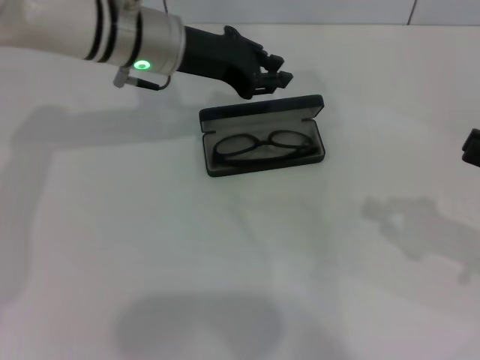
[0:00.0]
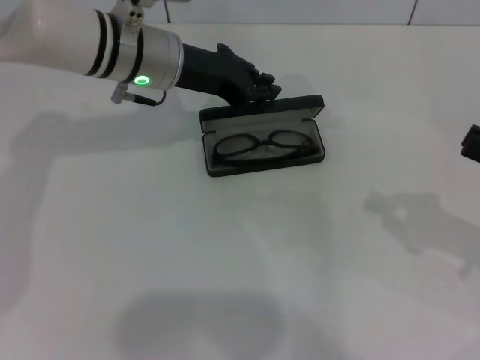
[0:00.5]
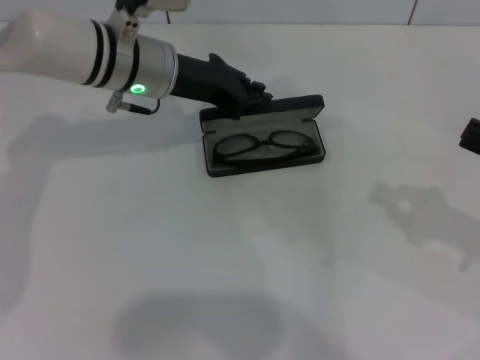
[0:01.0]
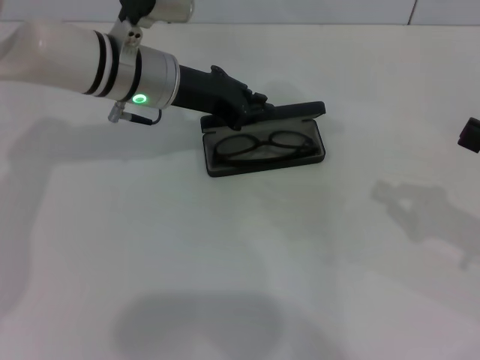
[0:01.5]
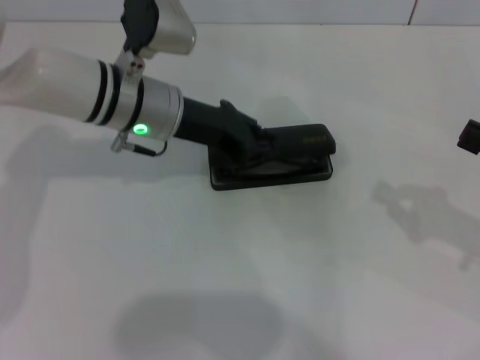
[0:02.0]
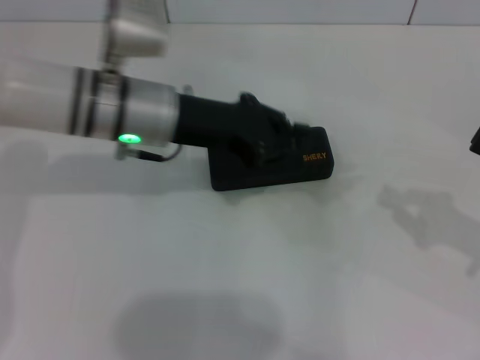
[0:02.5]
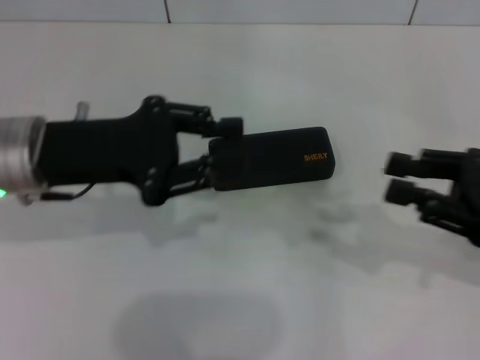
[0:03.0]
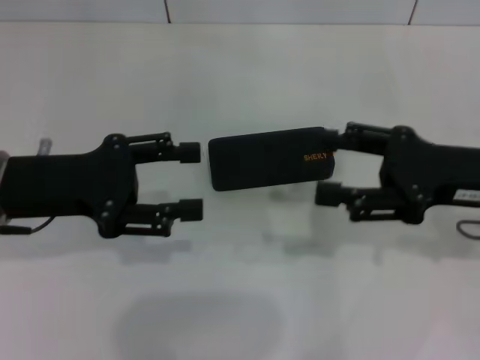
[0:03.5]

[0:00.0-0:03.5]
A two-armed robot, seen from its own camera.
Step, 0:00.0 to 0:02.0: Close the glasses case with your left hand.
0:00.0 to 0:02.0: The left gripper moves approximately 5 cm.
0:02.0 to 0:03.5: The left gripper shifts about 15 cm to the left and backward, and opens its fingers. Meanwhile the right gripper moves to the left, roughly 10 cm, and opens up.

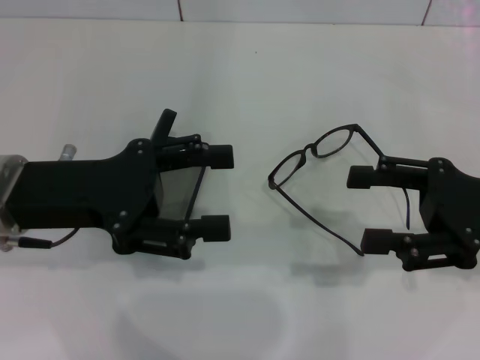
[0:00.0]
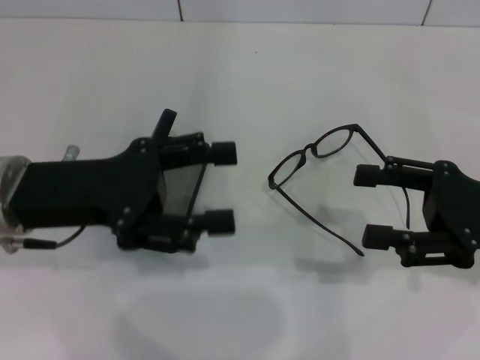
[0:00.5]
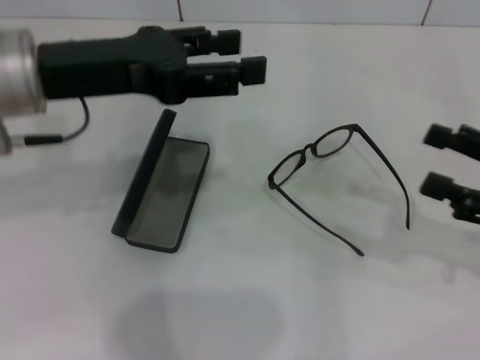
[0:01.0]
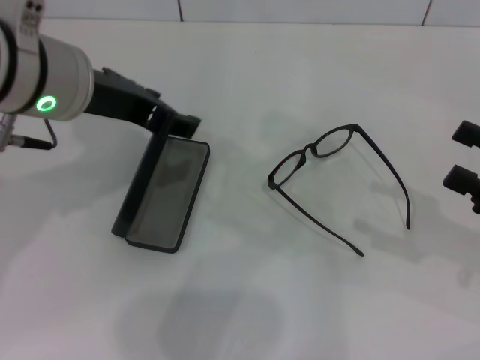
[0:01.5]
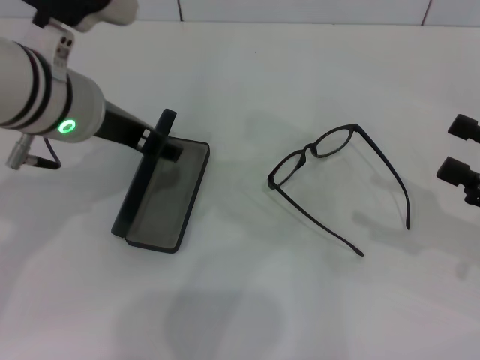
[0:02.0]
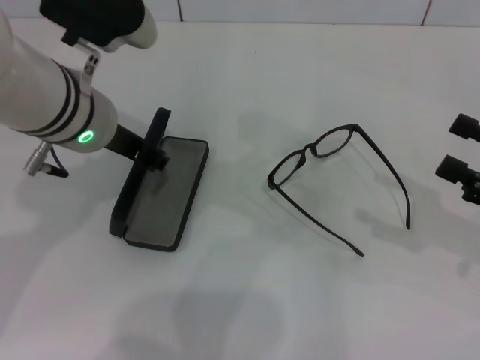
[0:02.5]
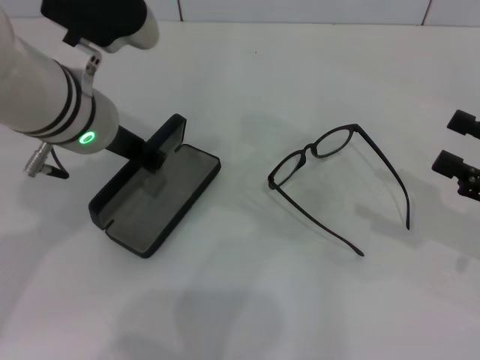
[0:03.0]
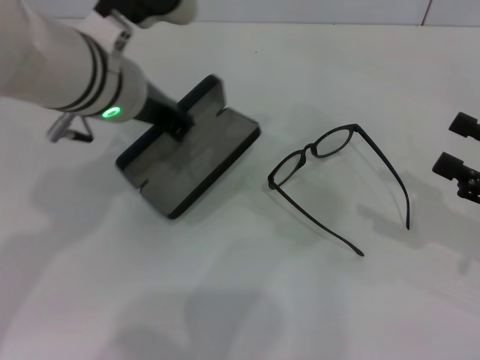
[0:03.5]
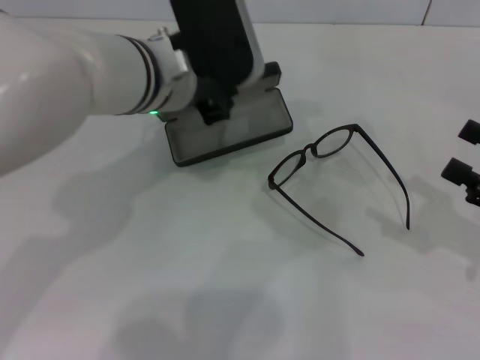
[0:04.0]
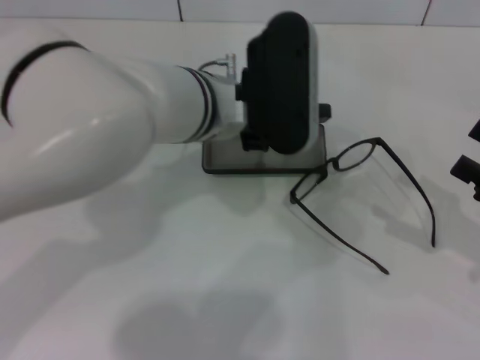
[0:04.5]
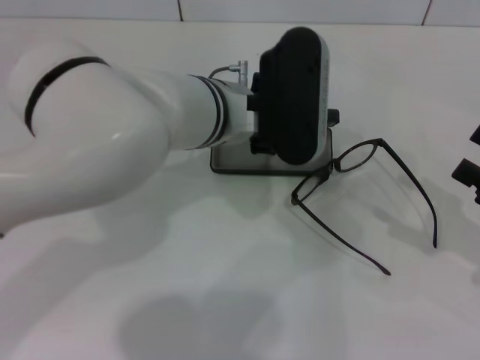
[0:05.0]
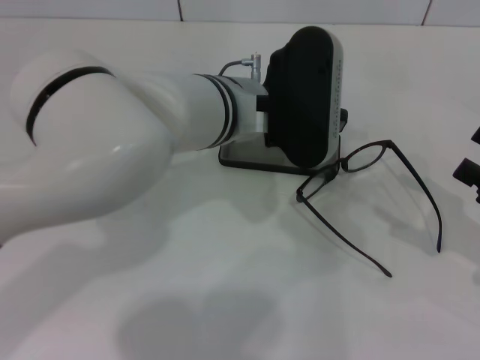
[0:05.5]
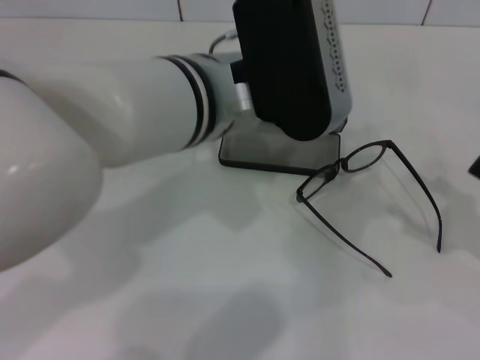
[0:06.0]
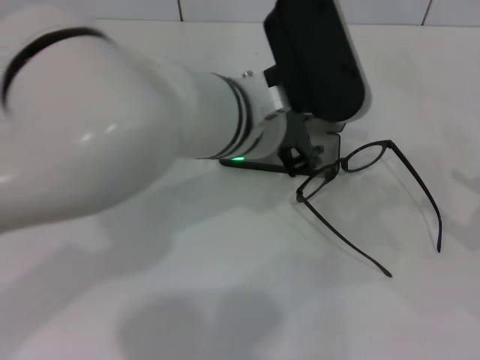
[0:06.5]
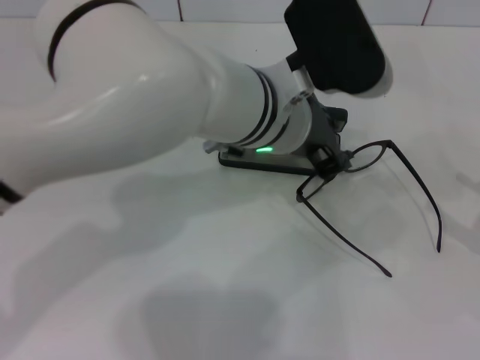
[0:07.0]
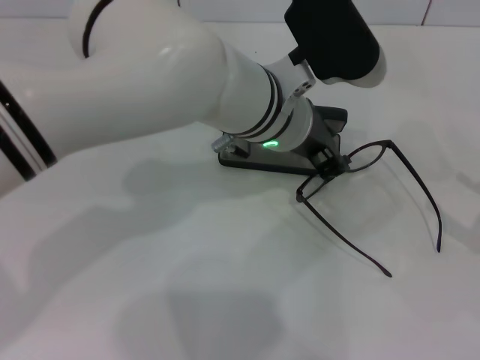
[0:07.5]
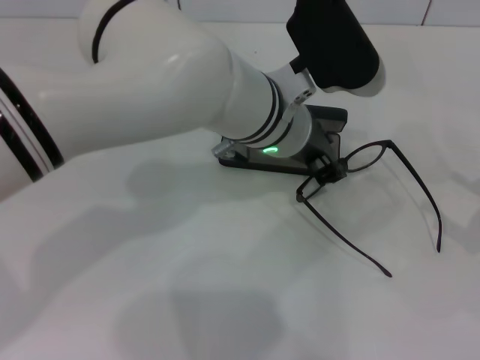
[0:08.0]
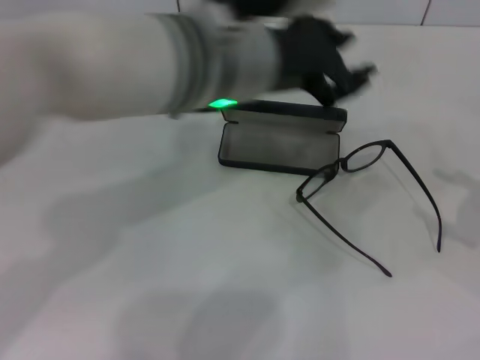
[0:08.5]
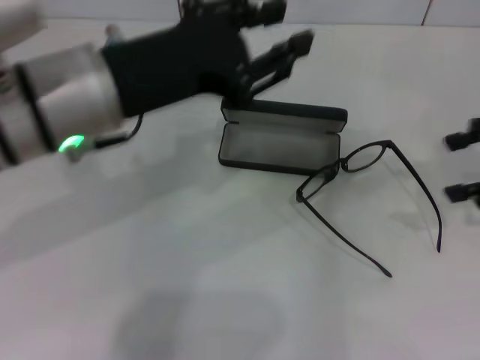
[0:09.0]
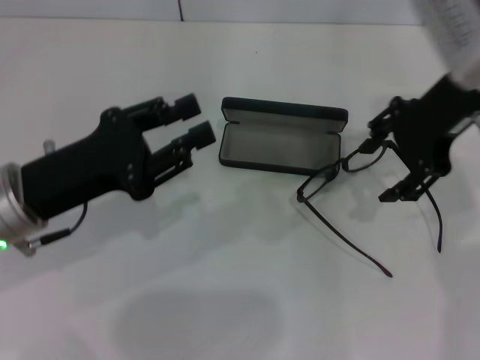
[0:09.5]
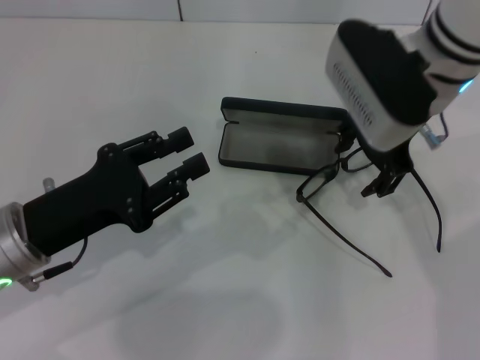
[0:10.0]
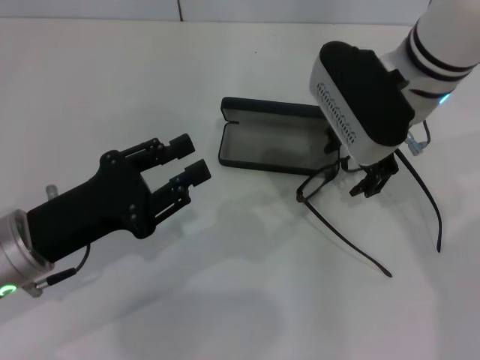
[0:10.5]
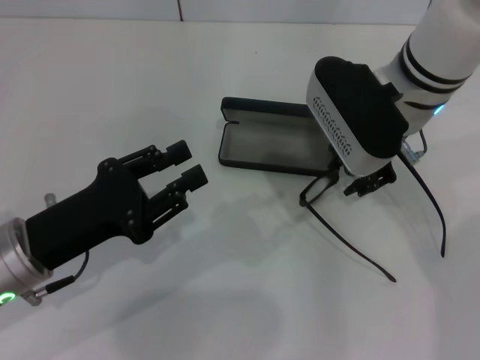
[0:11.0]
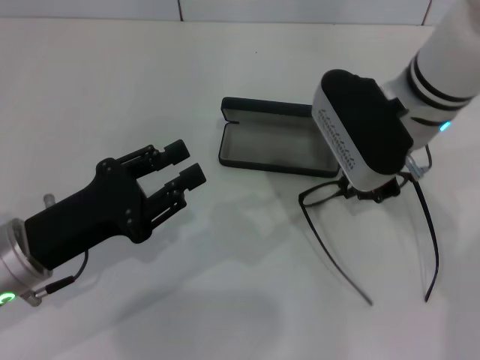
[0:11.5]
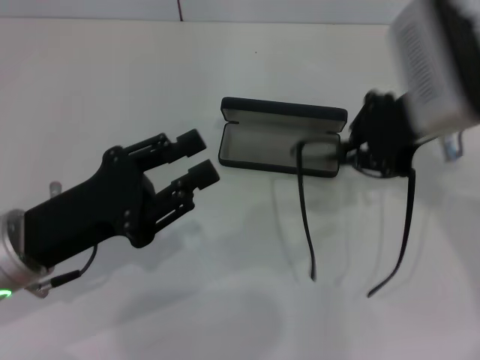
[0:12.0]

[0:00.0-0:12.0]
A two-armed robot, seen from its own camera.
Step, 0:00.0 to 0:02.5: Grab the glasses case with your left hand.
Step, 0:03.0 to 0:05.5: Place the glasses case in the center of the table with your left hand.
Step, 0:06.0 to 0:11.0: Grab the eyeglass frame with your right hand.
0:00.0 to 0:02.0: The right gripper is displaced to the right by some 5 cm; the left gripper goes approximately 10 cm to the right, forward and upward.
0:02.0 to 0:04.0: The left gripper goes approximately 5 cm to the right, and closes up.
0:04.0 to 0:06.0: The left gripper is displaced backward by some 5 cm.
0:06.0 to 0:08.0: The left gripper moves downward, approximately 5 cm.
0:08.0 to 0:10.0: The left gripper travels to the left and backward by some 25 cm. Meanwhile the right gripper moves to the left, forward and upward, about 35 cm.
0:10.0 to 0:12.0: The right gripper goes about 5 cm to the right, and closes its fingers.

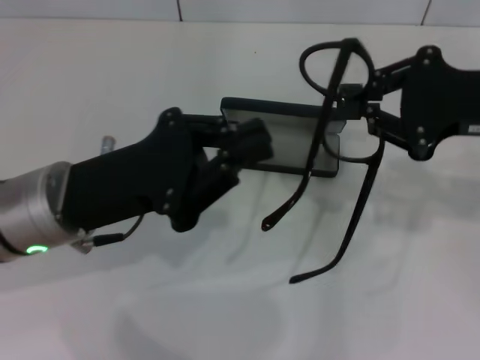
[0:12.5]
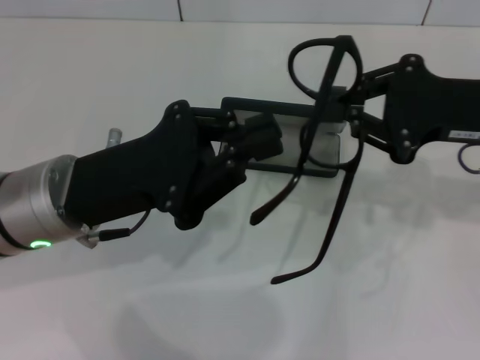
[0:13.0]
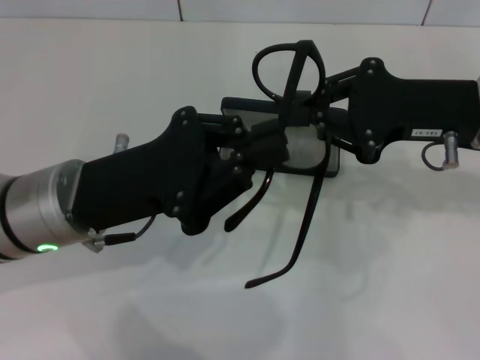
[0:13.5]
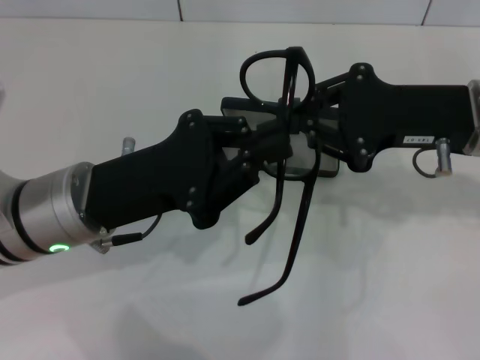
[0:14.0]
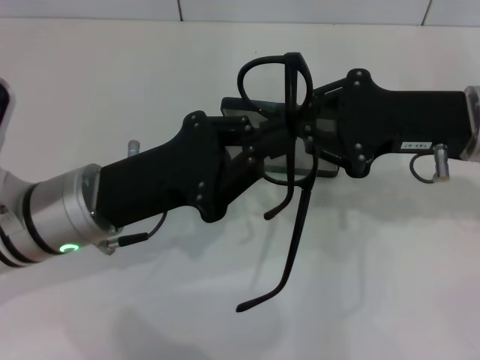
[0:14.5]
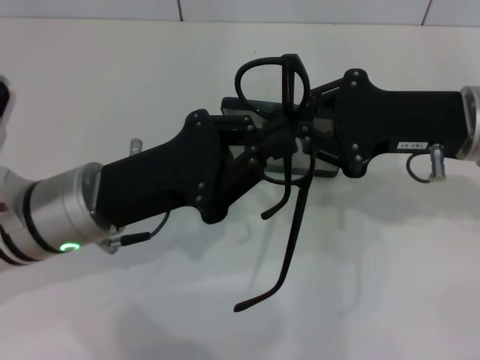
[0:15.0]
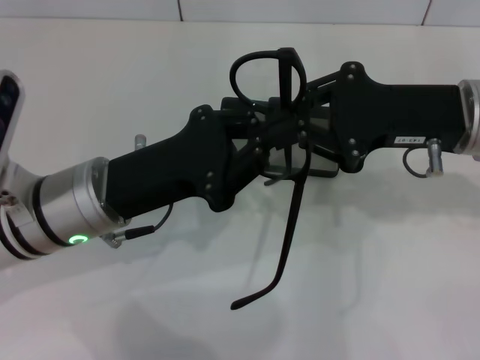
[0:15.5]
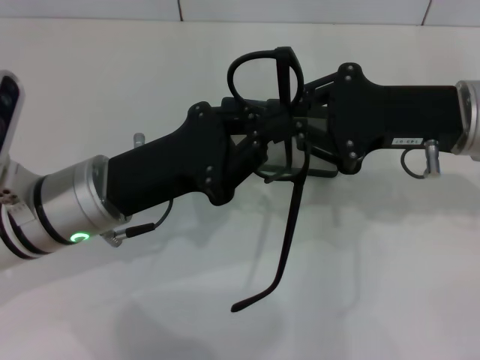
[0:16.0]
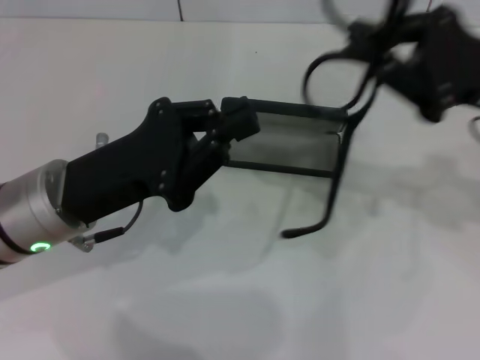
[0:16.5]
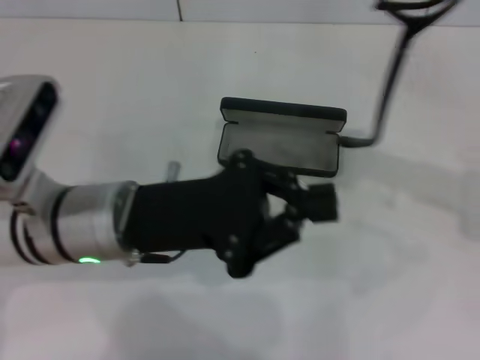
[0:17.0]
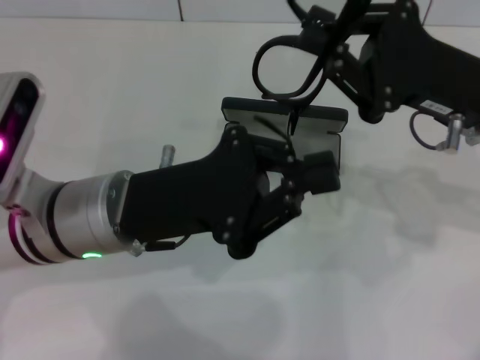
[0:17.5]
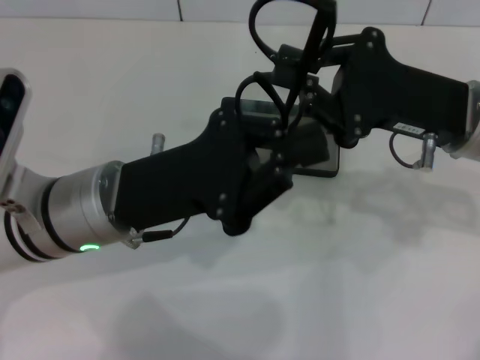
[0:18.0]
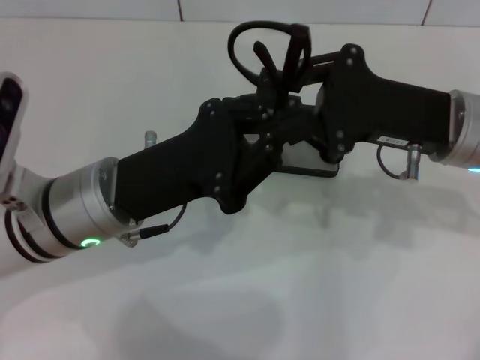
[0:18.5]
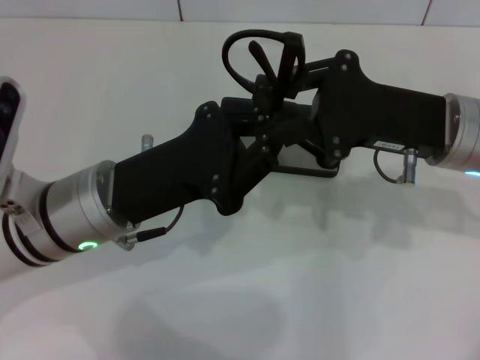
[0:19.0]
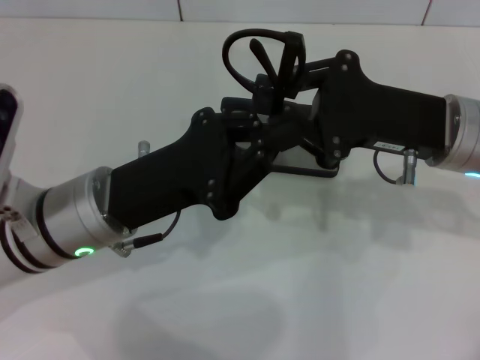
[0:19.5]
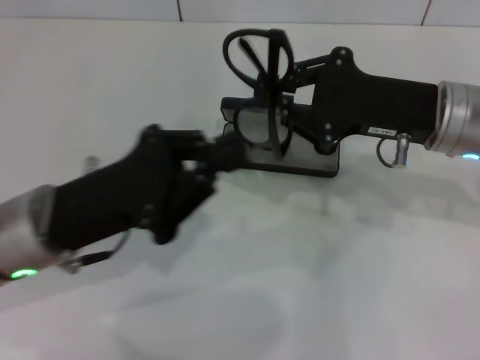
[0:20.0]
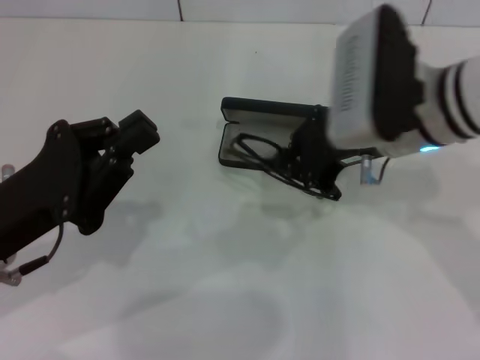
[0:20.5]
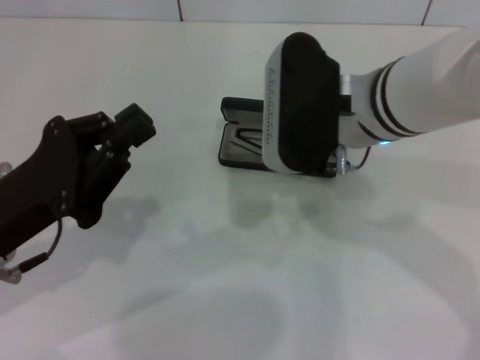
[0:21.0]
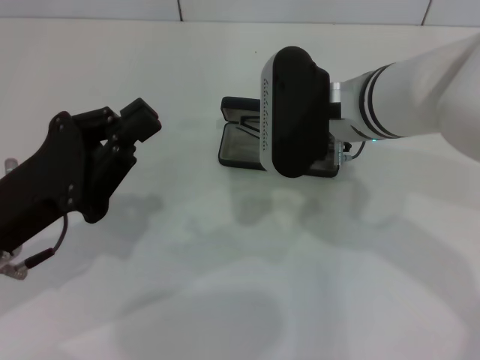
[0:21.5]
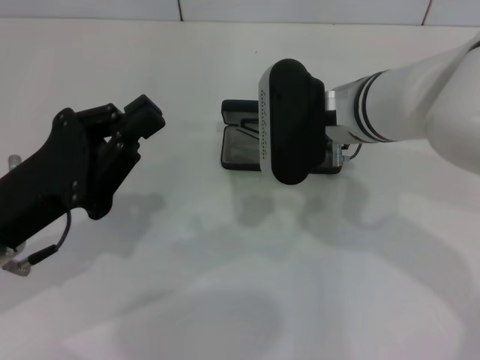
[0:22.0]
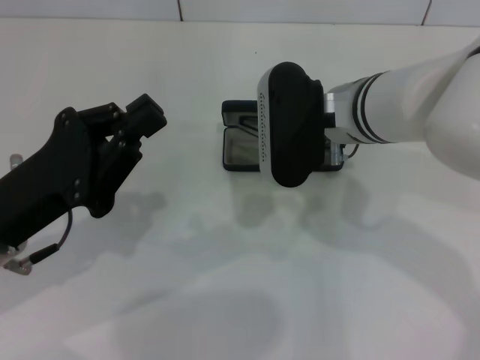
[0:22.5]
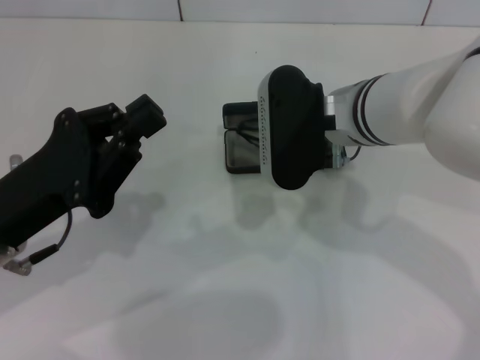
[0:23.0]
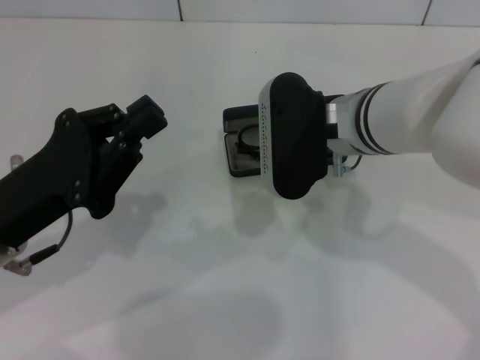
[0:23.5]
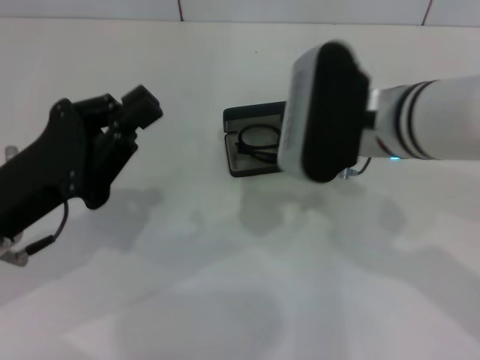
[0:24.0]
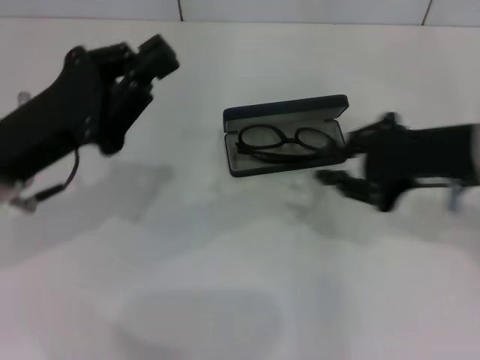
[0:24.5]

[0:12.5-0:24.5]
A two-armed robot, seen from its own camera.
Step, 0:12.5 to 0:19.5: Fold the frame with your left hand.
Step, 0:20.0 to 0:23.5: Put the glasses into the case with your right hand.
0:12.5 to 0:14.5: The right gripper changes place by roughly 5 cm.
0:16.5 to 0:18.5: The right gripper heads to the left, covering some 5 cm.
0:18.5 to 0:20.5: The right gripper goes some 5 cm to the left; the left gripper goes roughly 10 cm to the left.
0:20.5 to 0:22.5: The right gripper travels to the left by approximately 5 cm.
0:22.5 to 0:24.5: The right gripper shifts approximately 15 cm to the right and backward; the left gripper shifts by roughly 5 cm.
